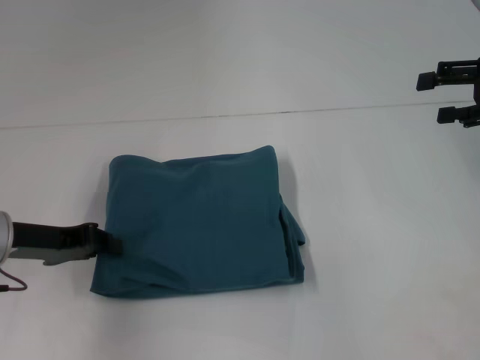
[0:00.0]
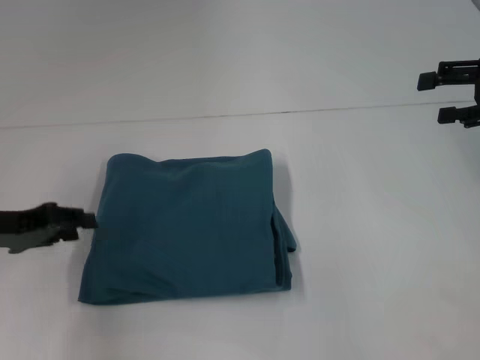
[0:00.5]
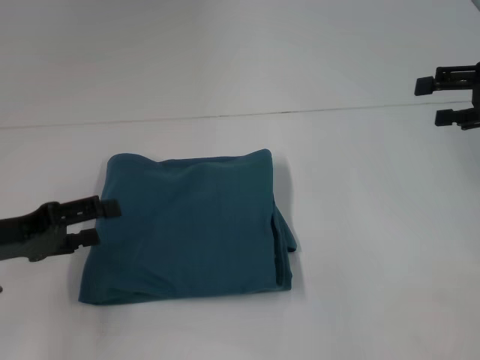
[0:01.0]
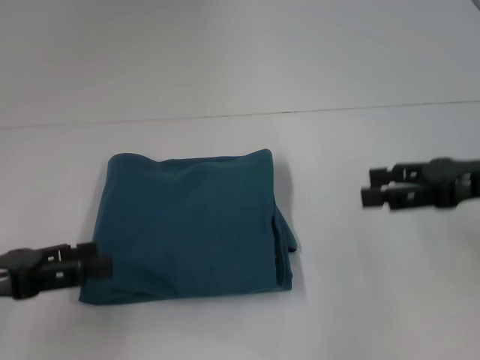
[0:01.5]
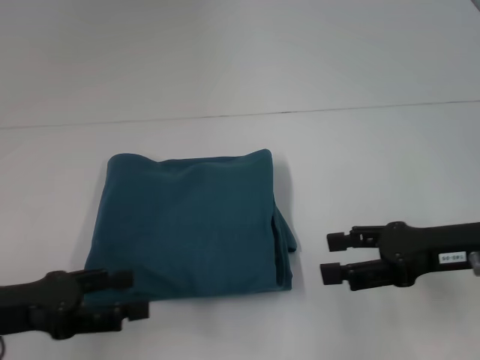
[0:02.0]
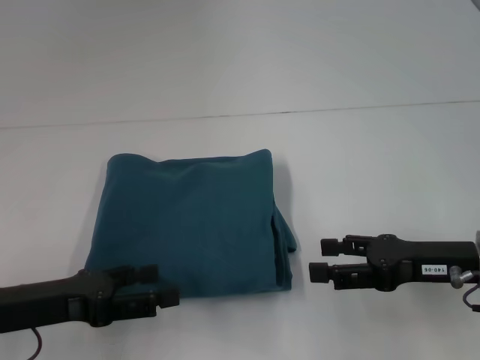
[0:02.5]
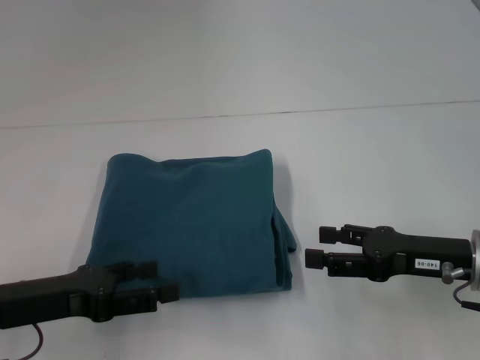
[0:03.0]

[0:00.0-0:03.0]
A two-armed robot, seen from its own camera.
0:00.0 to 0:01.5: The right gripper is displaced backward and to the left by approximately 10 cm. Meanwhile the left gripper moves backward, roughly 10 cm, and opens.
0:01.5 to 0:03.0: The right gripper moves downward, about 10 cm, while the left gripper is displaced to the right by about 5 cm.

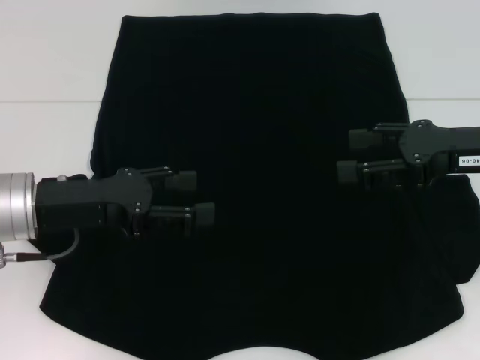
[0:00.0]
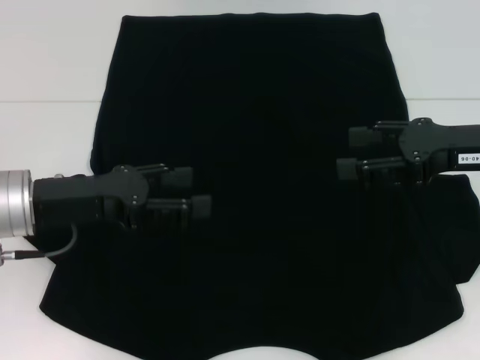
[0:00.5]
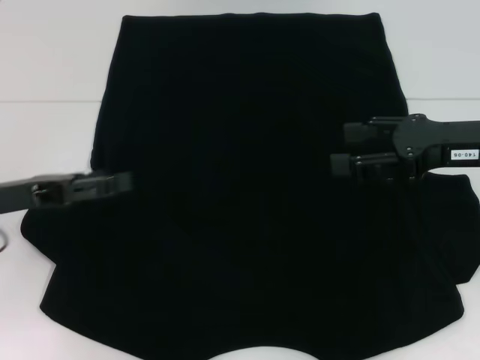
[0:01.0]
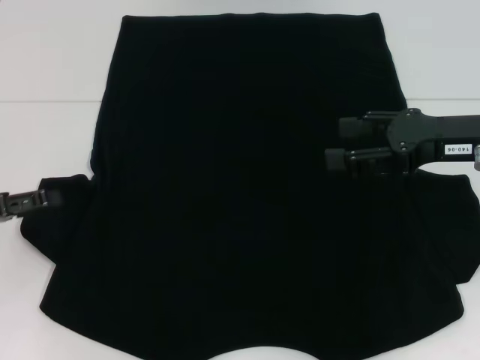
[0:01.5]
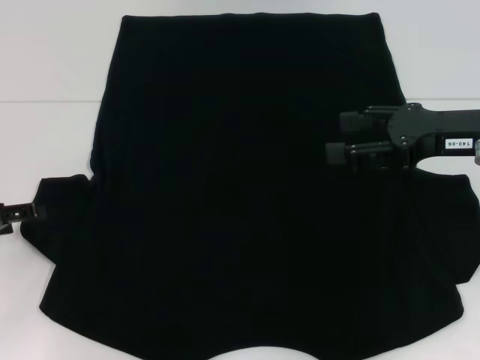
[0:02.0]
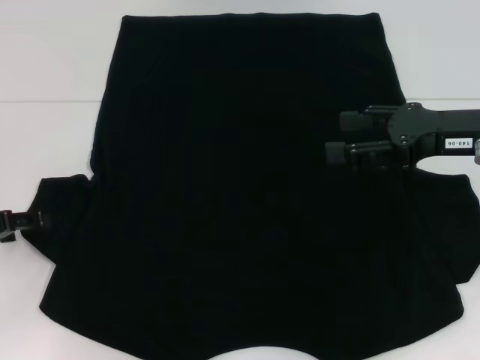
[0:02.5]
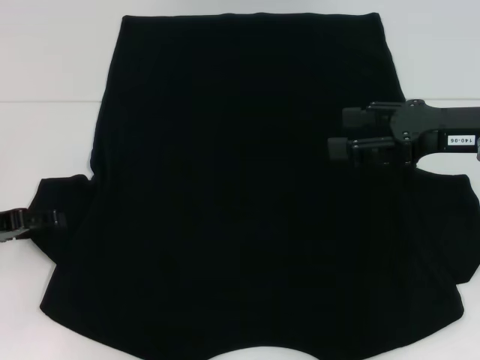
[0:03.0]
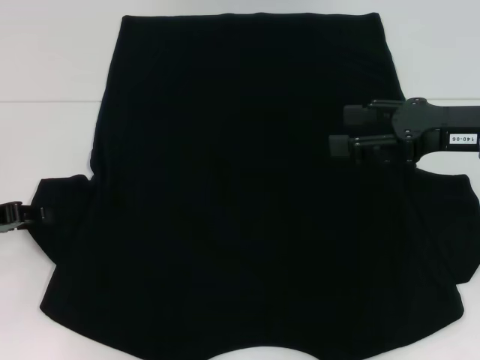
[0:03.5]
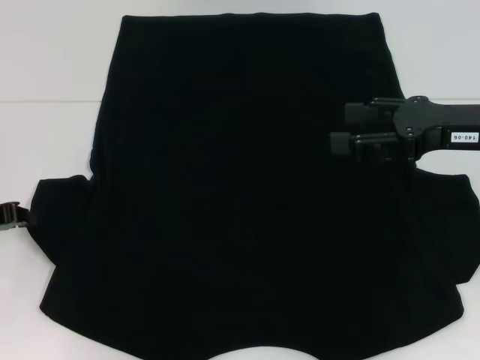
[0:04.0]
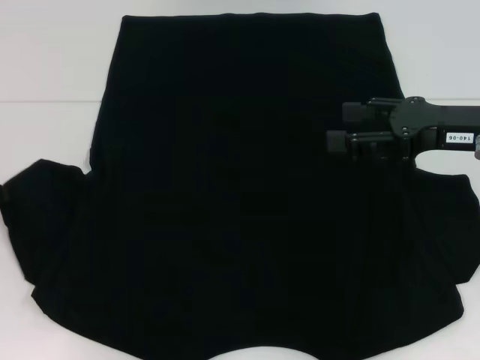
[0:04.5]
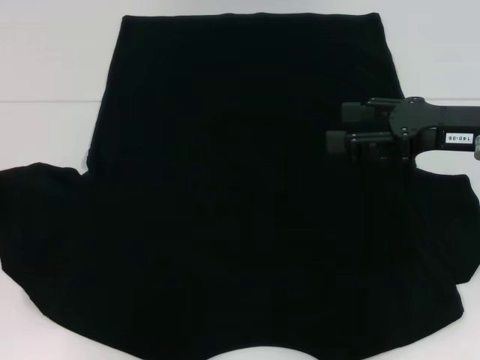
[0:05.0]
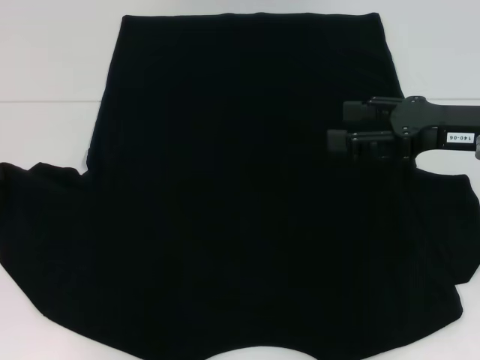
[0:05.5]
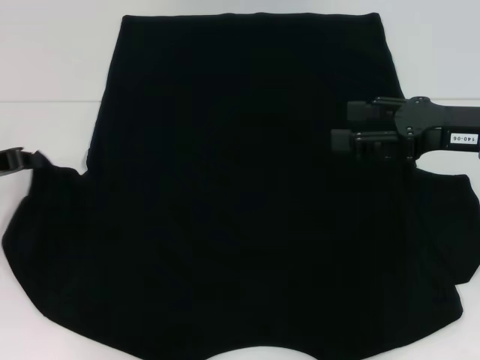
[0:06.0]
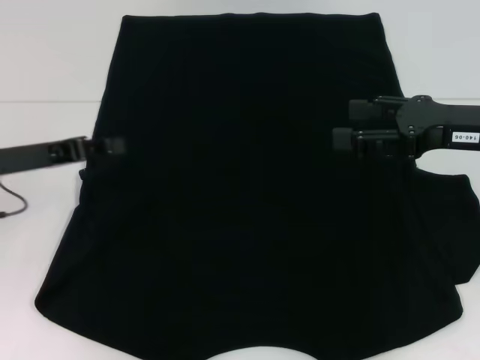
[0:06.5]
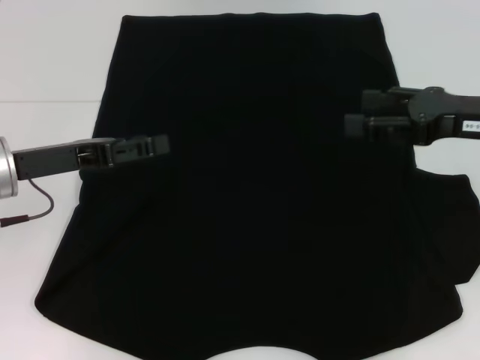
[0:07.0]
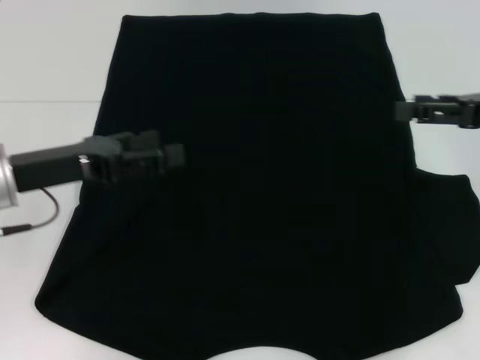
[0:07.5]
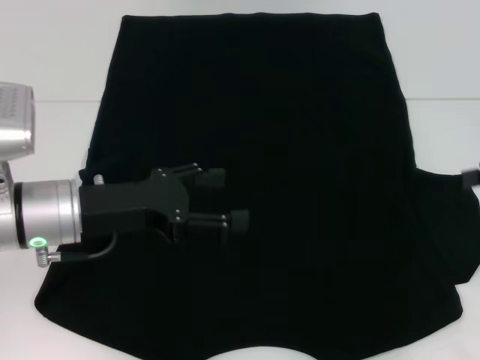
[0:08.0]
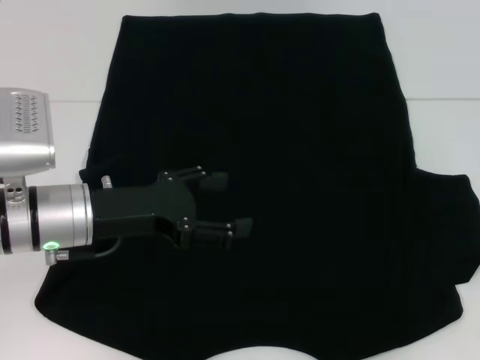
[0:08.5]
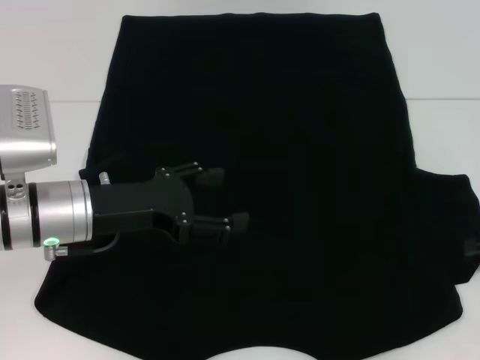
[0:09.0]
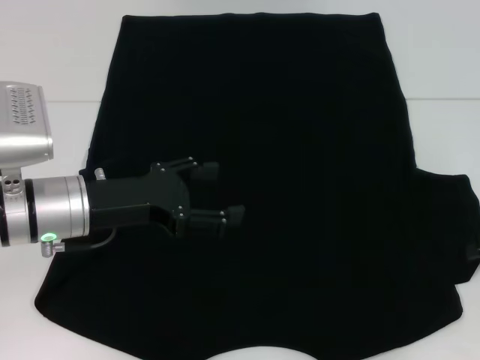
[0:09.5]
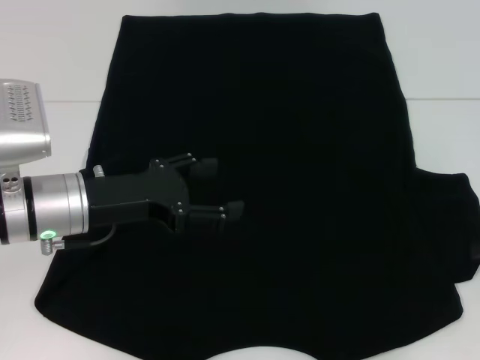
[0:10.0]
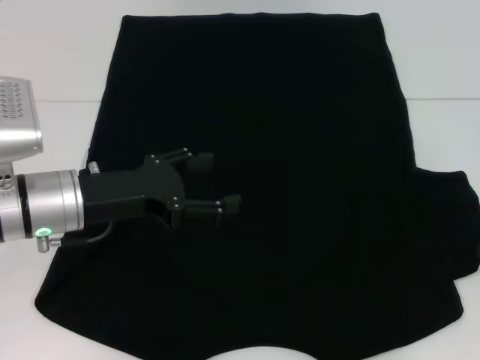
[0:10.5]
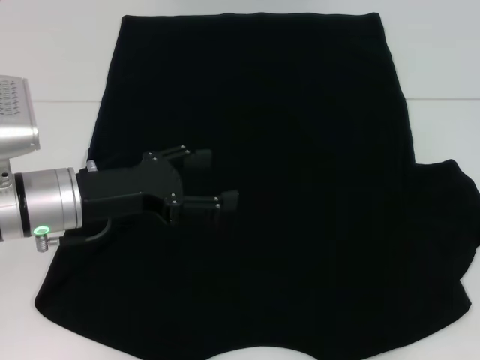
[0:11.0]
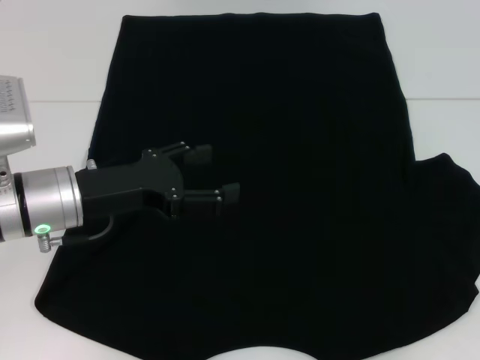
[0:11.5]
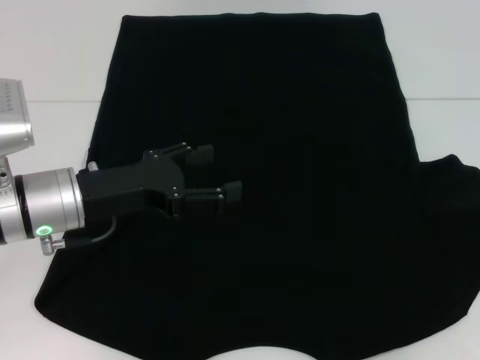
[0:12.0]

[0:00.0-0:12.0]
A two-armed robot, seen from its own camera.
Step, 0:00.0 to 0:07.0: Fold the bottom left sleeve with your left hand.
0:00.0 to 0:02.0: The left gripper is displaced to the left by roughly 15 cm.
0:02.0 to 0:04.0: The left gripper closes its fingers.
0:04.0 to 0:06.0: The grippers move only a little.
0:06.0 to 0:08.0: Both grippers move to the right, roughly 10 cm. The left gripper opens up.
0:10.0 to 0:12.0: The right gripper closes its fingers.

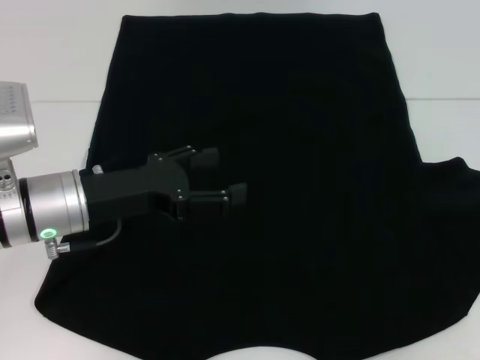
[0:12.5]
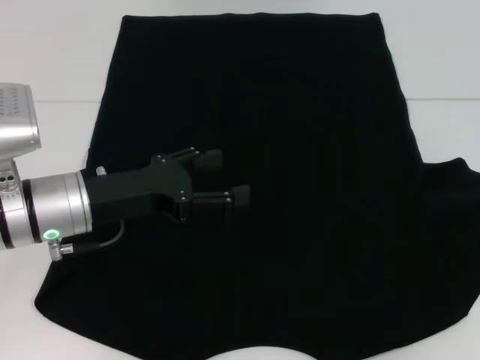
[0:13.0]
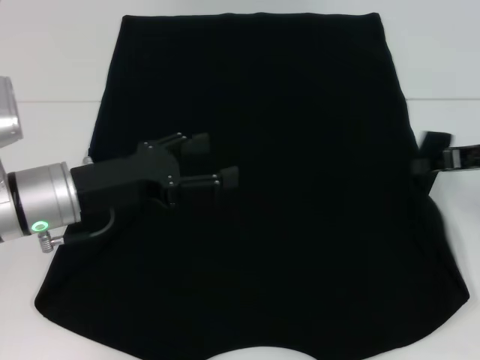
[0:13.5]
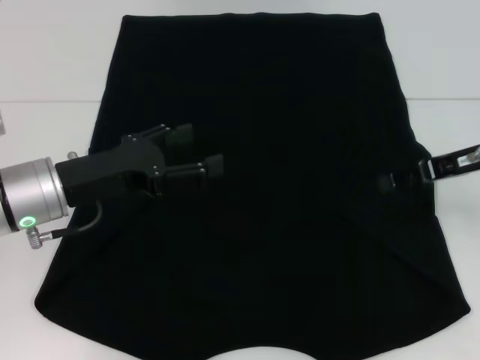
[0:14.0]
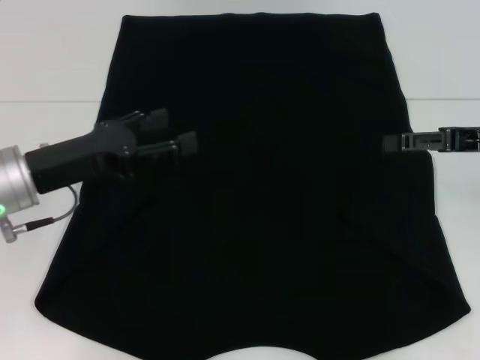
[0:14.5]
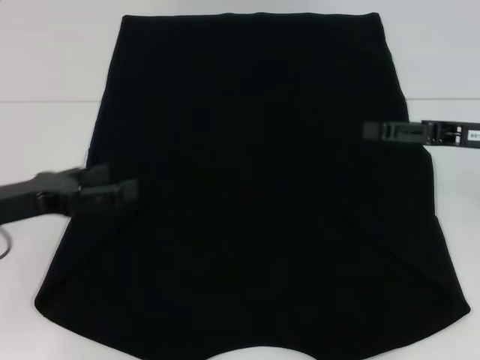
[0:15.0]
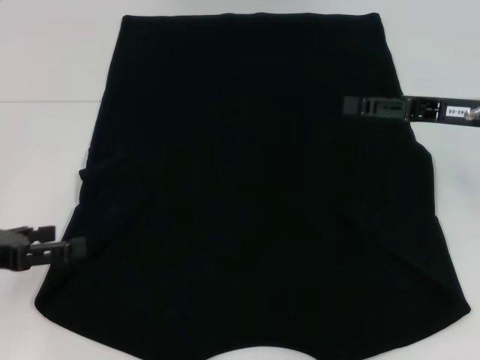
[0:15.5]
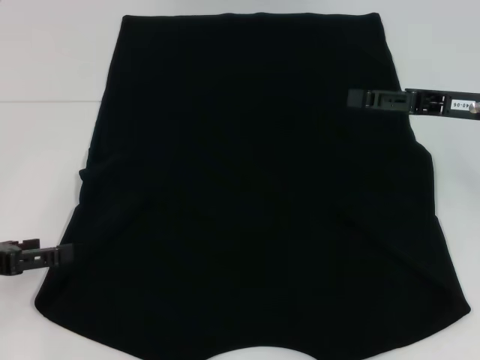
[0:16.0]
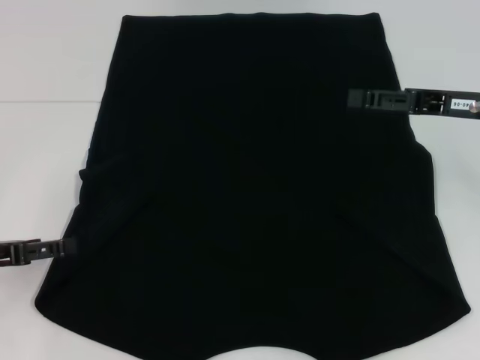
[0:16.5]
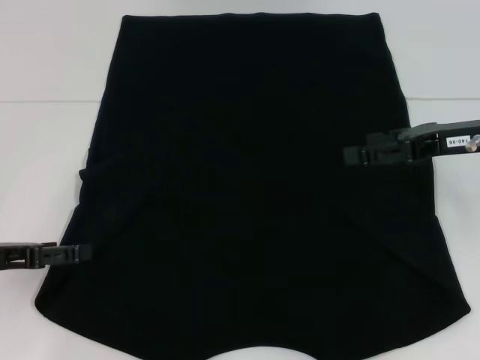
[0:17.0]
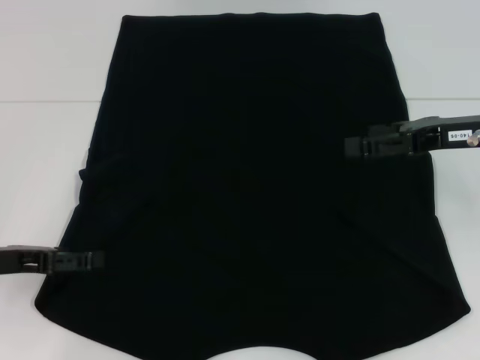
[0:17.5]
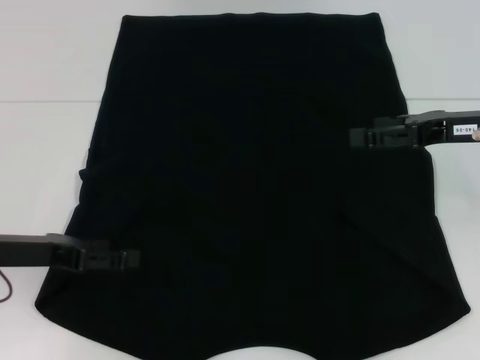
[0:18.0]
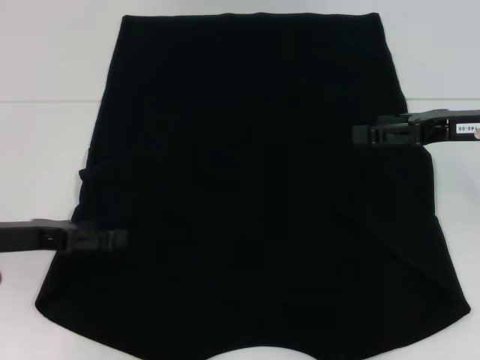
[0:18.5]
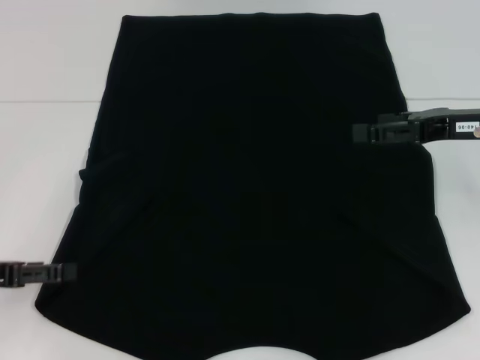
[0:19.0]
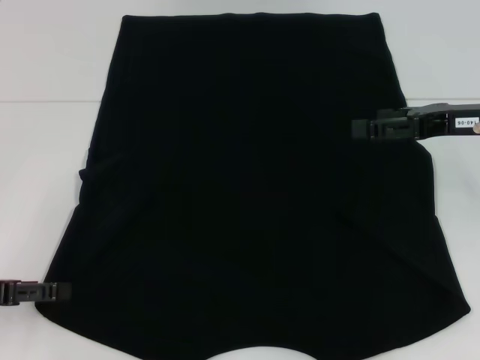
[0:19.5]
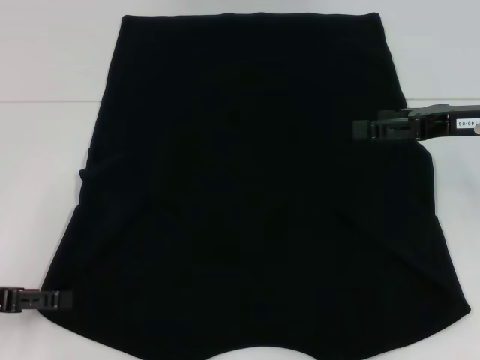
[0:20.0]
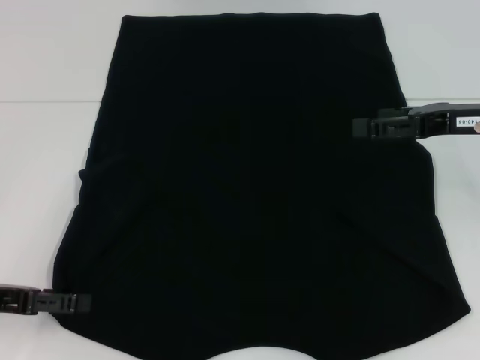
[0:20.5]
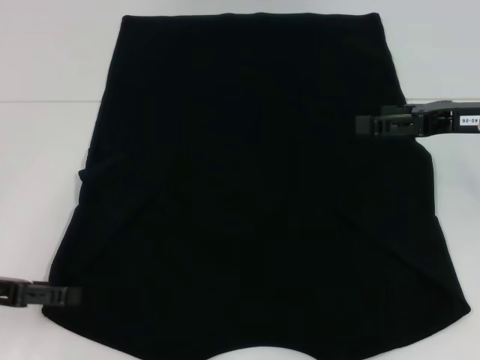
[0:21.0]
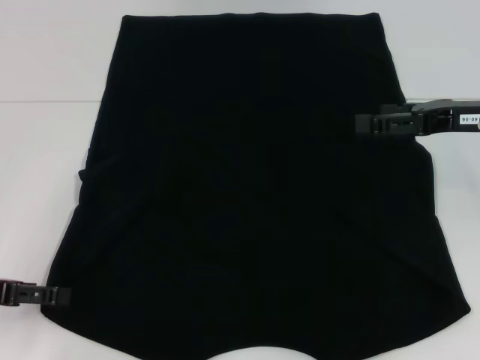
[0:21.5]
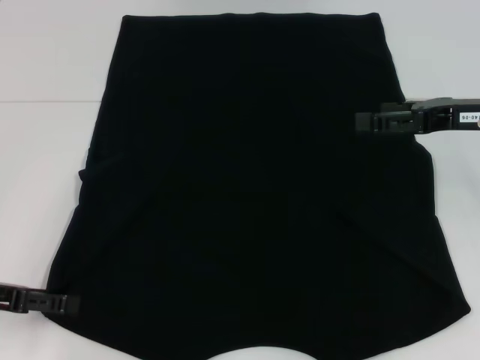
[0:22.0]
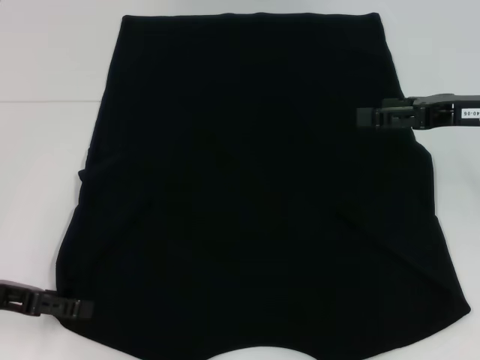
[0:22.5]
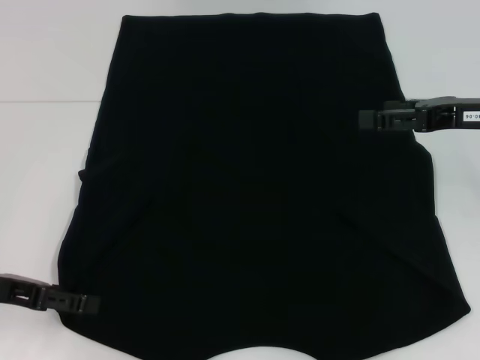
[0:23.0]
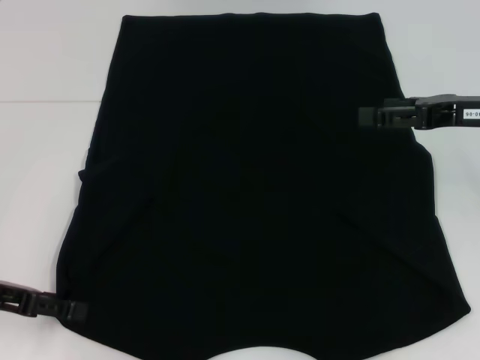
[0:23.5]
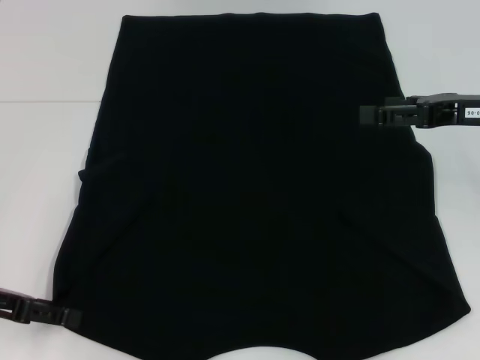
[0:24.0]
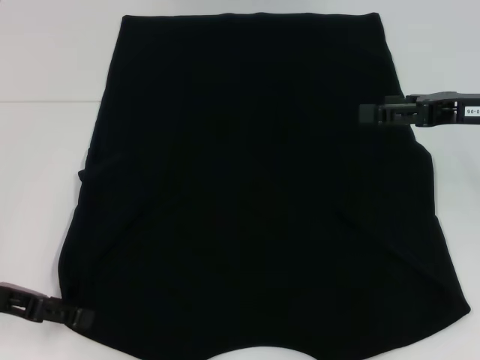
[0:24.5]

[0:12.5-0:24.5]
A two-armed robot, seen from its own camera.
0:12.5 to 0:14.5: The right gripper shifts about 10 cm to the left, and opens up.
0:14.5 to 0:16.5: The left gripper goes approximately 10 cm to the left and backward.
0:16.5 to 0:18.5: The left gripper ends up roughly 5 cm from where it was.
0:18.5 to 0:20.5: The left gripper ends up roughly 5 cm from where it was.
0:20.5 to 0:22.5: The grippers stay close to where they were, moving slightly.
0:22.5 to 0:24.5: Both grippers stay about where they are.
